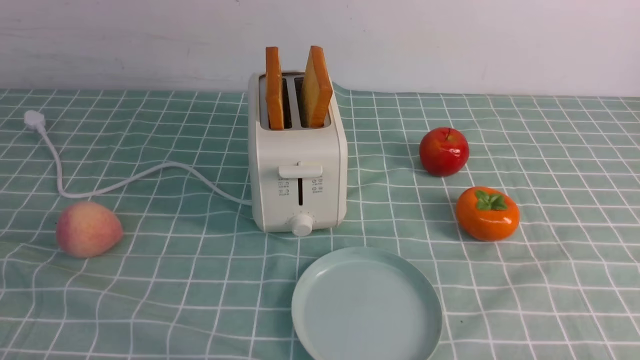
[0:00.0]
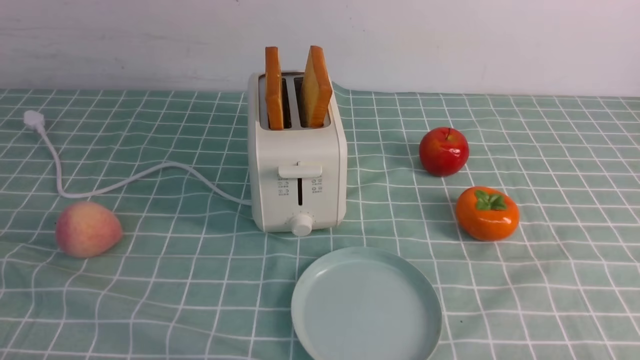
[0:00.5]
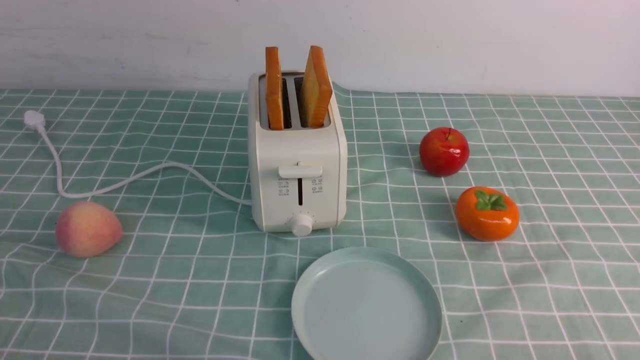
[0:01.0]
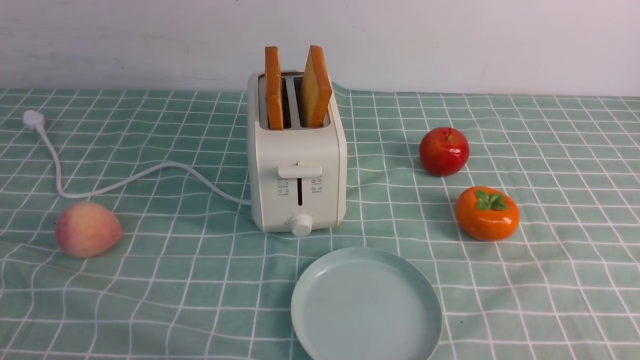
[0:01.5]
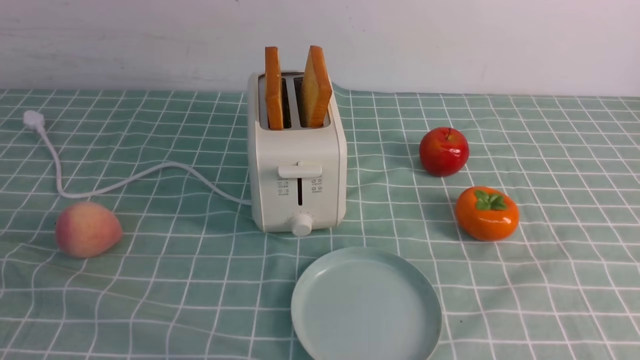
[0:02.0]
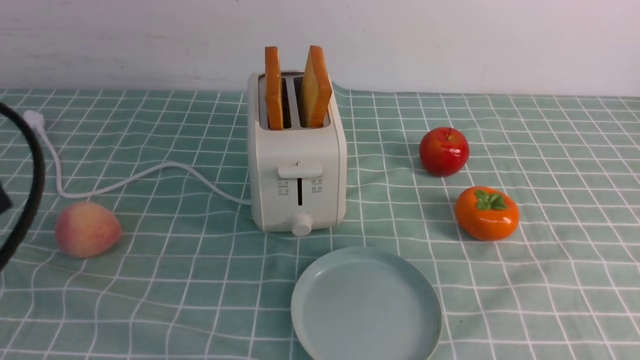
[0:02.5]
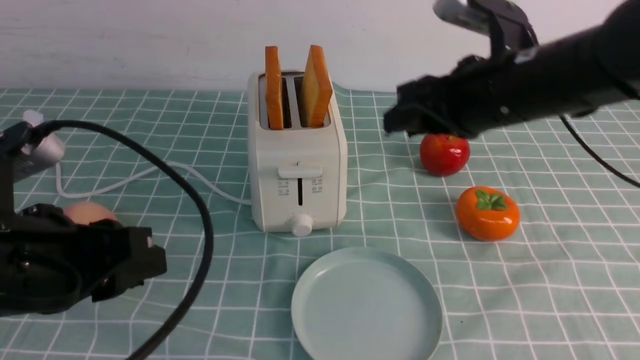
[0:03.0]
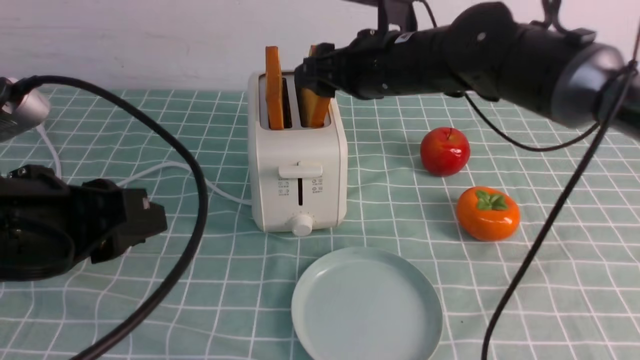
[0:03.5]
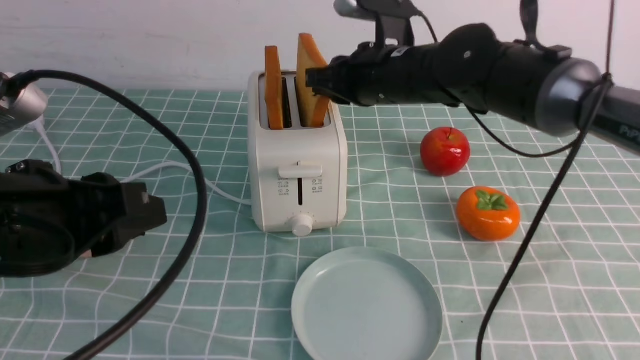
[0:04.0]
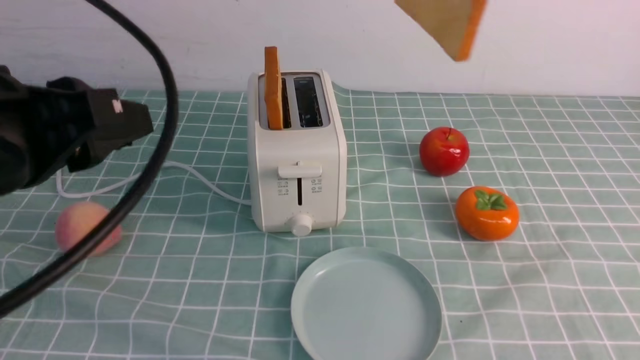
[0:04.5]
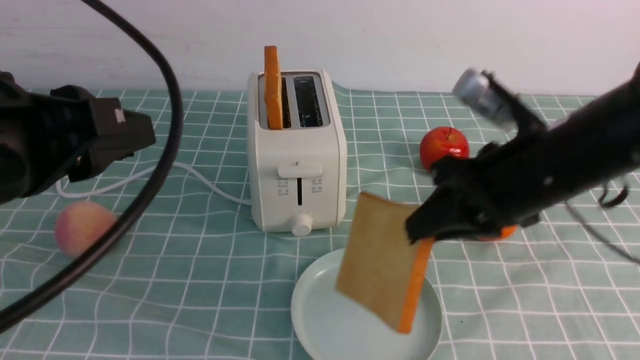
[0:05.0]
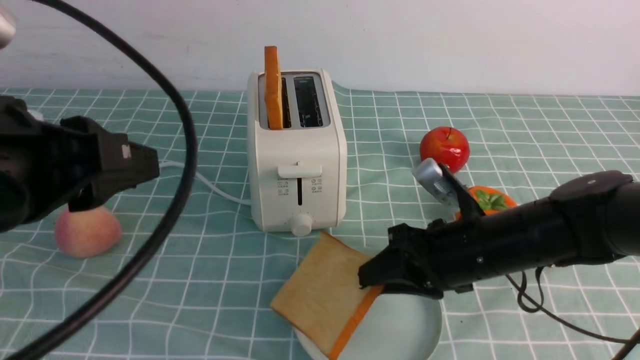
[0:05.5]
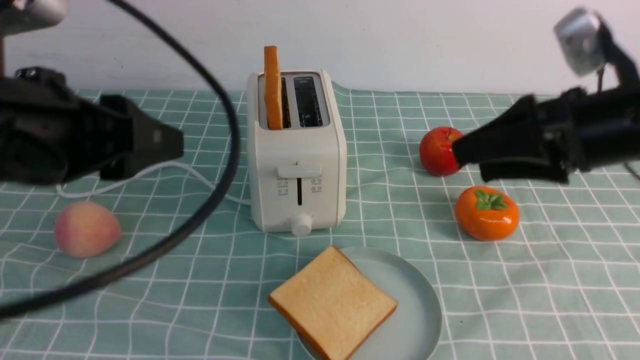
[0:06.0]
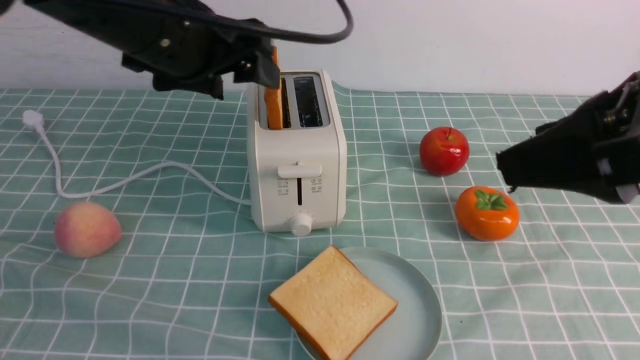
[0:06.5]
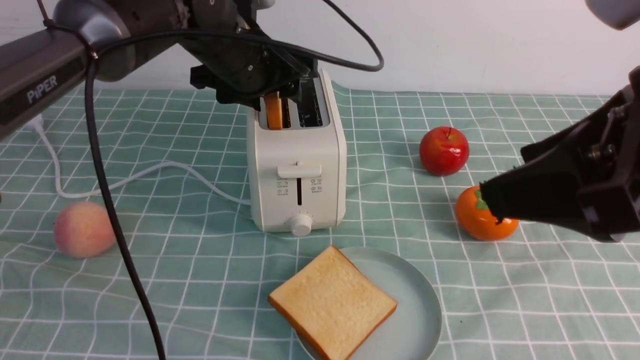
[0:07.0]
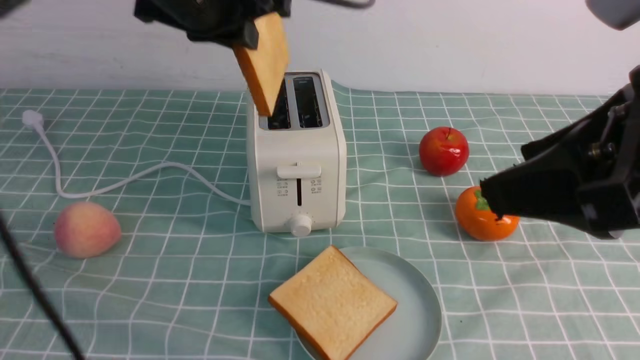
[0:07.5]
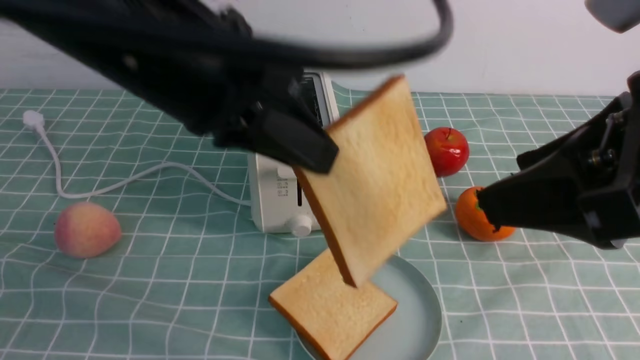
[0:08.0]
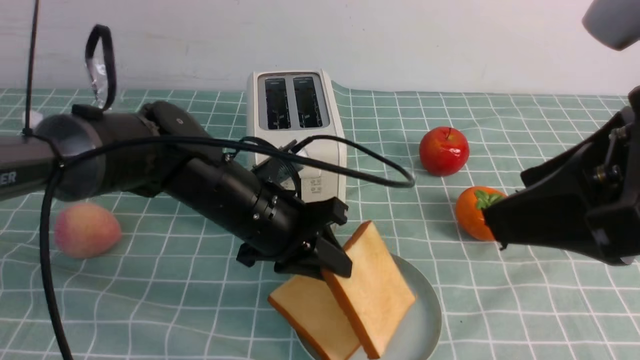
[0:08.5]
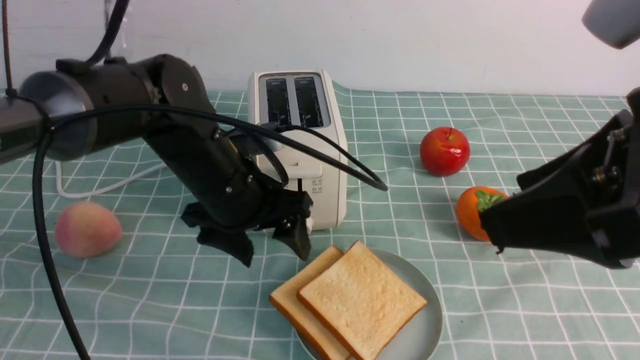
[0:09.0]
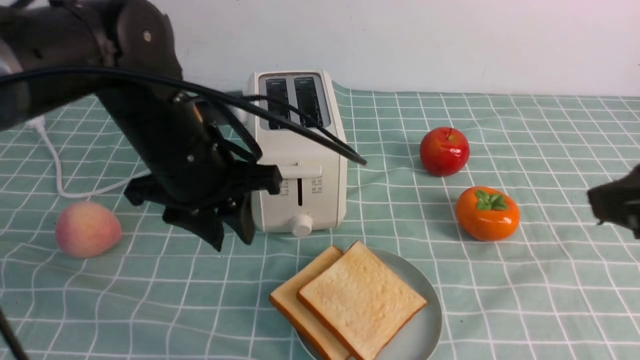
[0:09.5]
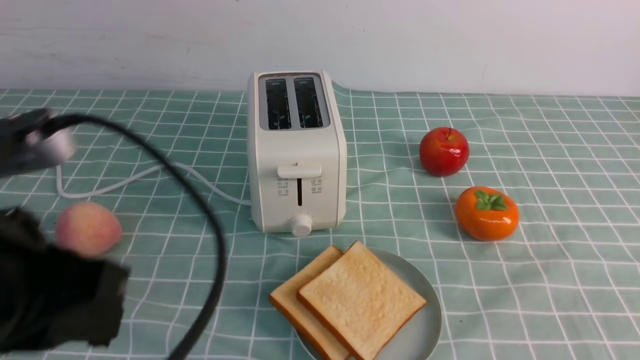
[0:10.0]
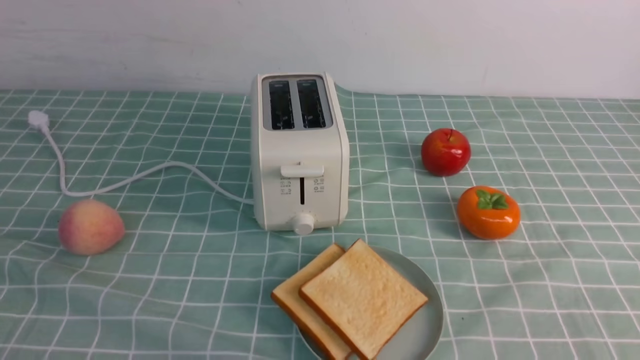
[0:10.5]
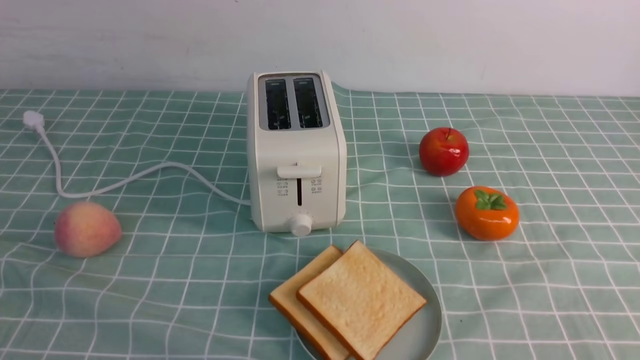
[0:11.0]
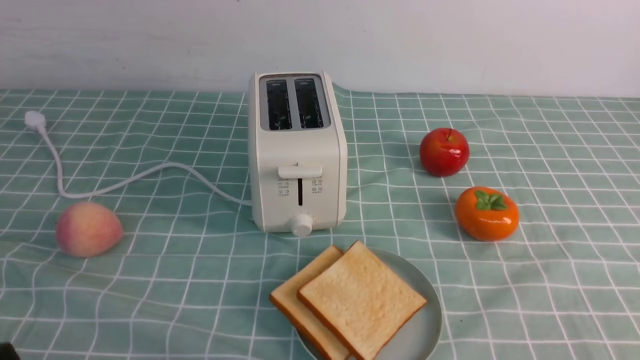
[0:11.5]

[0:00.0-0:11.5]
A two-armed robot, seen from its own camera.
Task of the whole recording: take toasted bread from bread machine on blue coffee table place on plate.
Step, 0:00.0 to 0:04.0: use the right arm to take out a slice of bread.
Step, 0:04.5 to 0:05.5: use the right arm to put a slice of bread into the plate.
Step, 0:06.0 to 0:07.5: use the left arm to take out a slice of bread.
Step, 0:08.0 to 0:09.0: use the left arm to put a slice of bread into the empty plate.
0:02.0 to 0:04.0: The left gripper goes roughly 10 cm forward and to the right, while the right gripper is displaced forward and to the left by about 40 cm, and opens, then closes once more.
0:04.0 to 0:06.0: The left gripper shifts roughly 5 cm upward. The right gripper moves up and down over some 25 cm, changing direction 2 times, and opens.
0:06.0 to 0:07.5: The right gripper is displaced backward and upward by roughly 15 cm. The left gripper heads forward and to the right, covering roughly 15 cm, and closes up.
0:07.5 to 0:09.5: The right gripper moves to the right, about 5 cm, while the left gripper travels downward by approximately 10 cm, and opens, then closes once more.
0:09.5 to 0:11.5: The left gripper heads backward, to the left and downward, covering approximately 30 cm, and closes. The right gripper moves downward, backward and to the right, about 15 cm, and closes its fingers.
